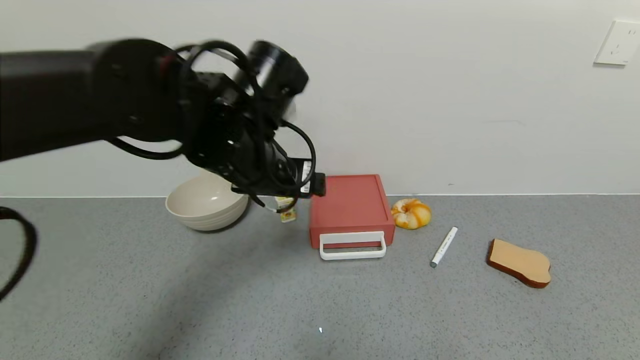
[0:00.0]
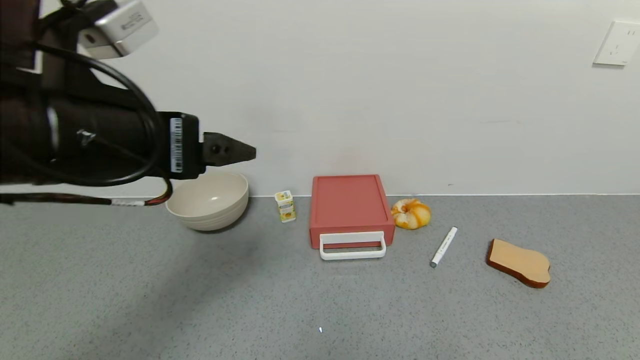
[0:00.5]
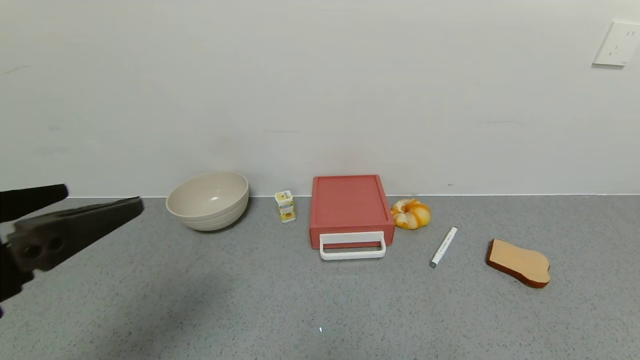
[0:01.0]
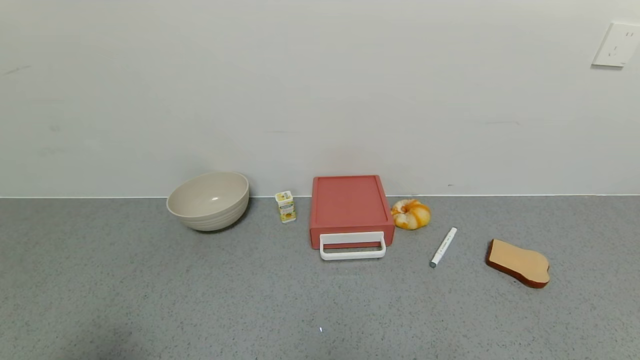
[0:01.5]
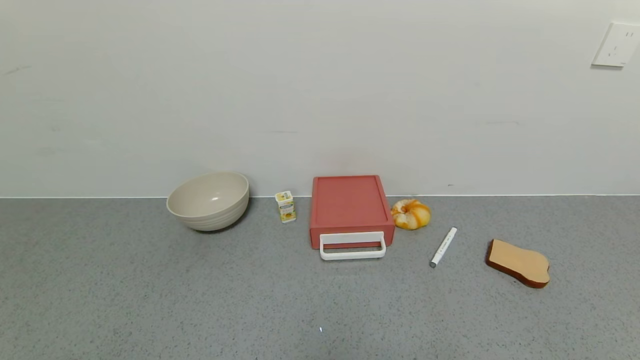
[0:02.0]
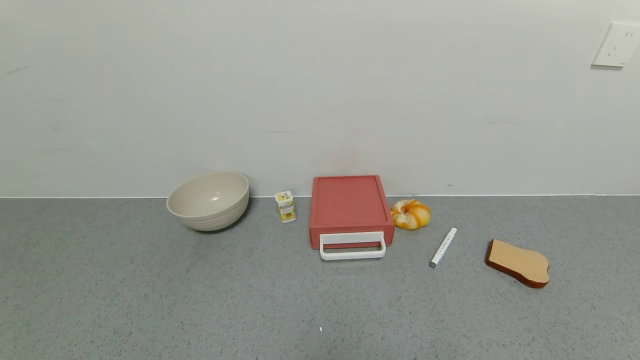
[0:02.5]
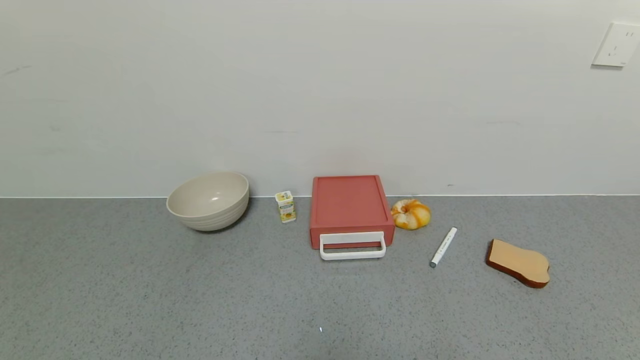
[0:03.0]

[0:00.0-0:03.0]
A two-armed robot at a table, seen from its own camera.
Task of the whole recording: use the gripper to open the drawer and close the red drawer.
0:00.0 to 0:01.5: The left gripper travels backward and to the left by about 35 cm.
